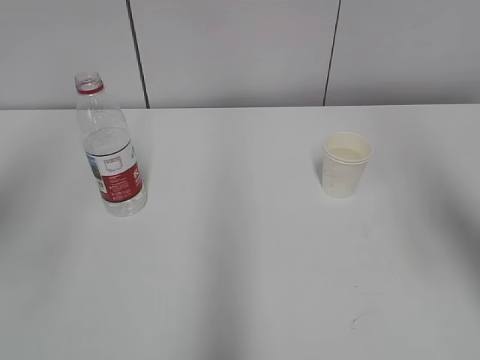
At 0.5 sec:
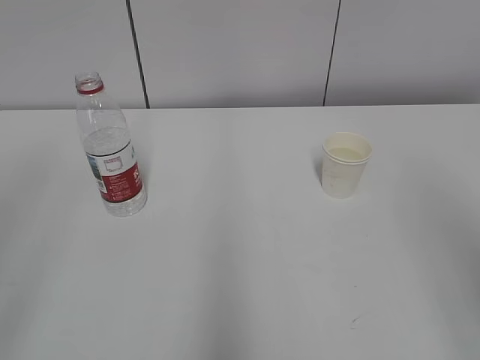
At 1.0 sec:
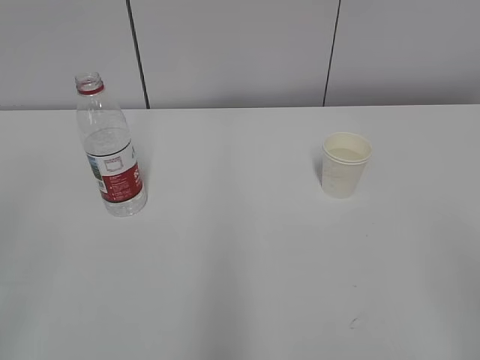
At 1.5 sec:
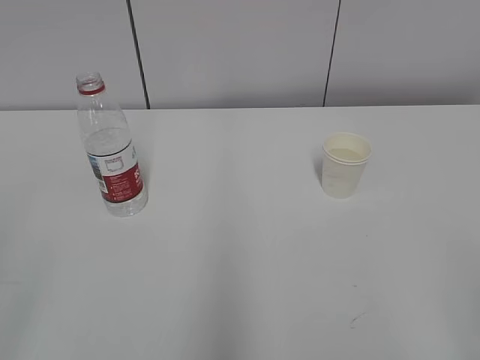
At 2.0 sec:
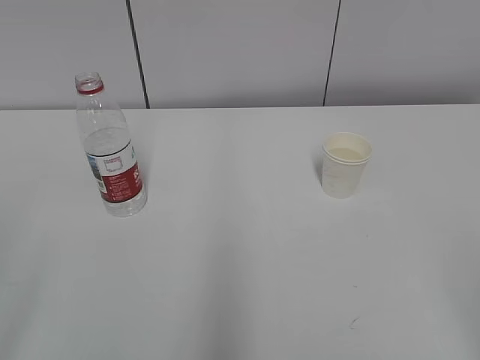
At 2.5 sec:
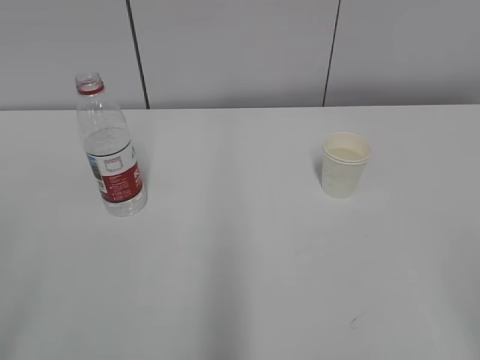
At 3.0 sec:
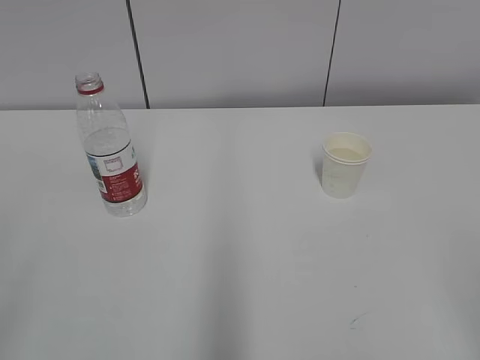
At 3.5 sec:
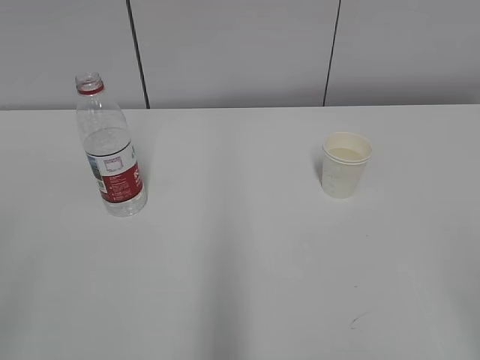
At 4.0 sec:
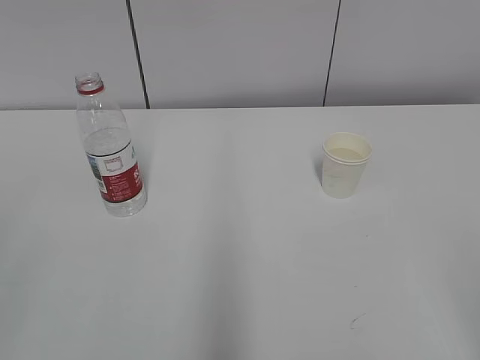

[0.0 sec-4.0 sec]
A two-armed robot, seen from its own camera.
0.0 sec to 2.0 sec: The right gripper moves backward and downward, about 25 cm.

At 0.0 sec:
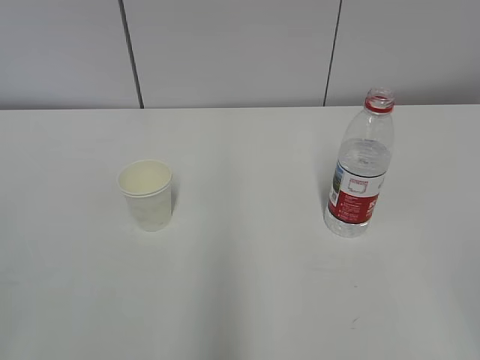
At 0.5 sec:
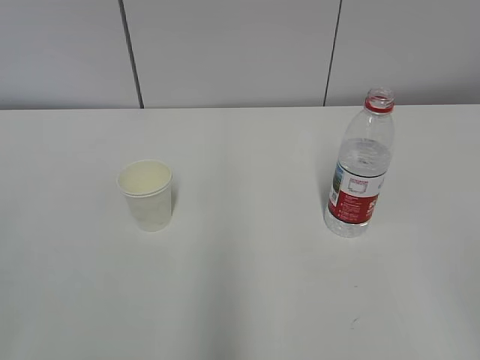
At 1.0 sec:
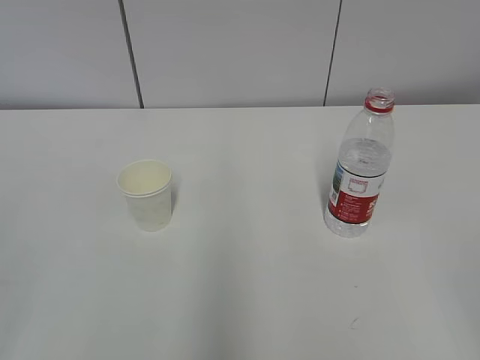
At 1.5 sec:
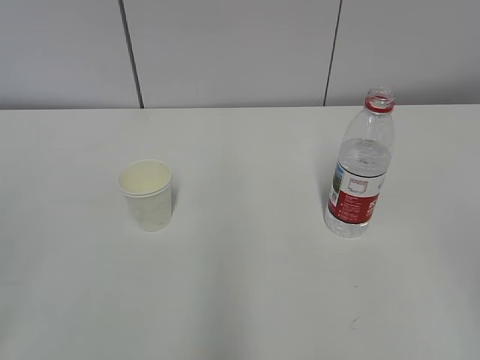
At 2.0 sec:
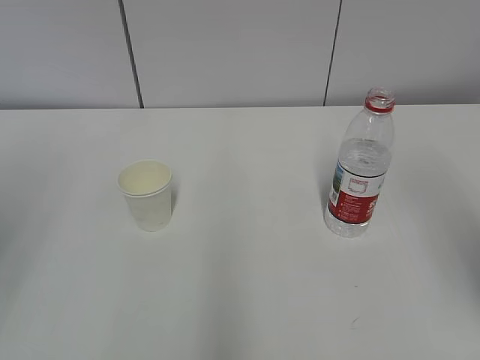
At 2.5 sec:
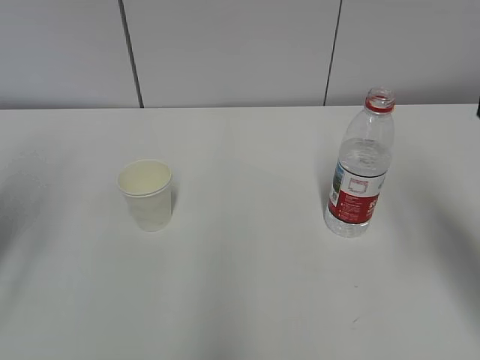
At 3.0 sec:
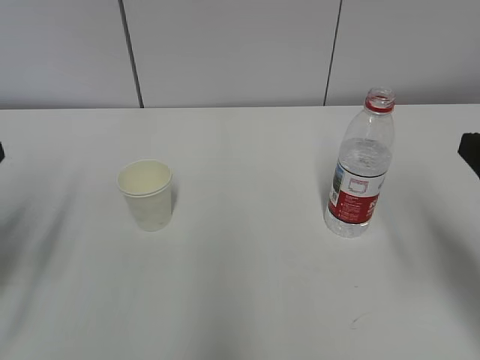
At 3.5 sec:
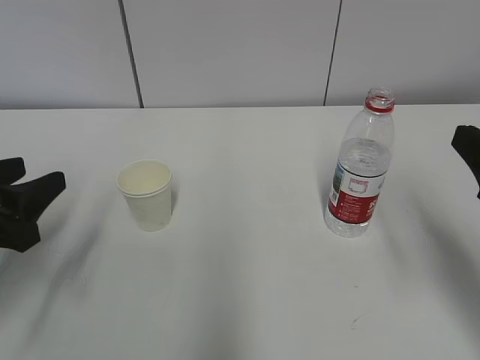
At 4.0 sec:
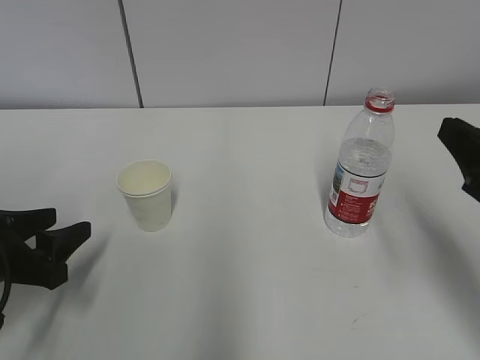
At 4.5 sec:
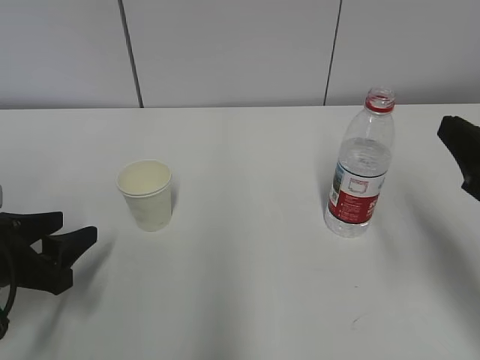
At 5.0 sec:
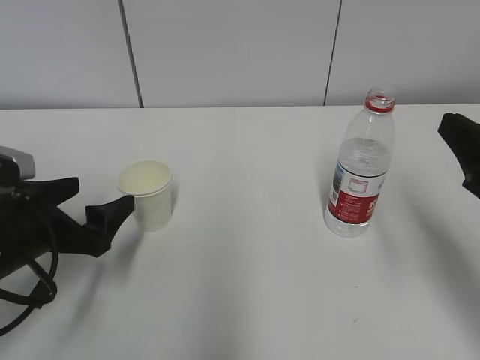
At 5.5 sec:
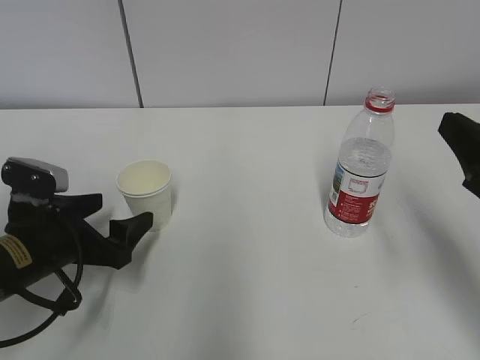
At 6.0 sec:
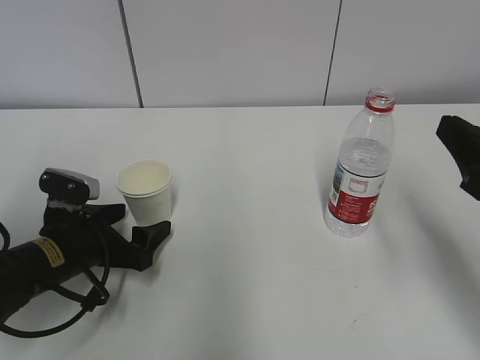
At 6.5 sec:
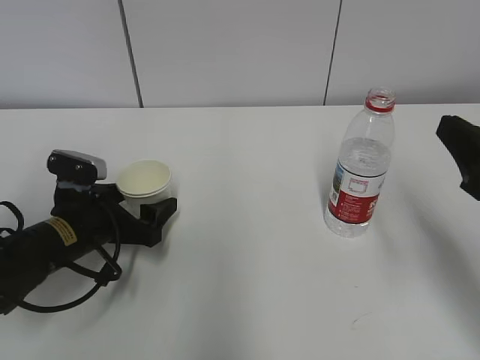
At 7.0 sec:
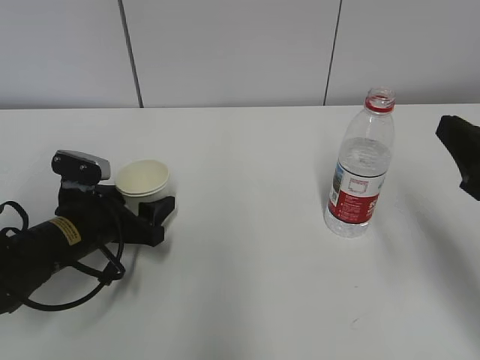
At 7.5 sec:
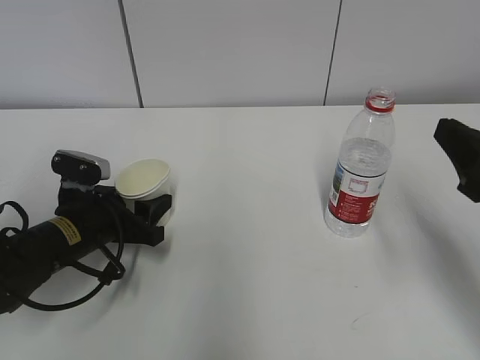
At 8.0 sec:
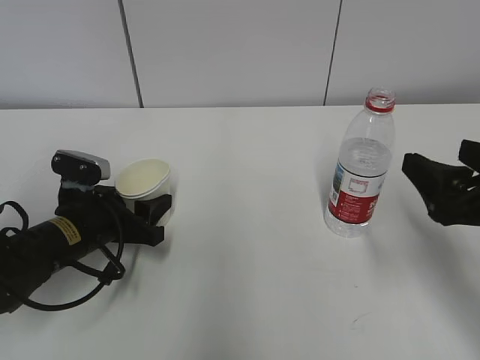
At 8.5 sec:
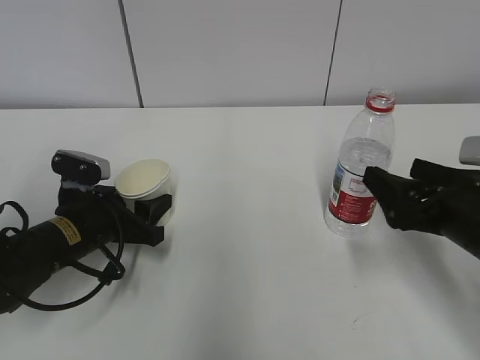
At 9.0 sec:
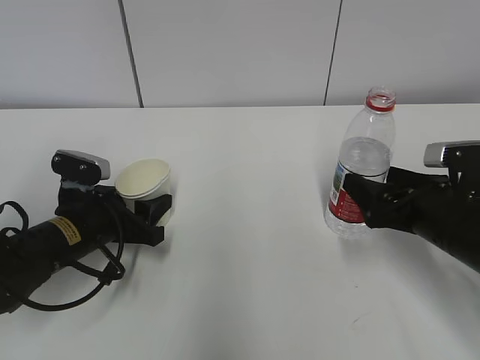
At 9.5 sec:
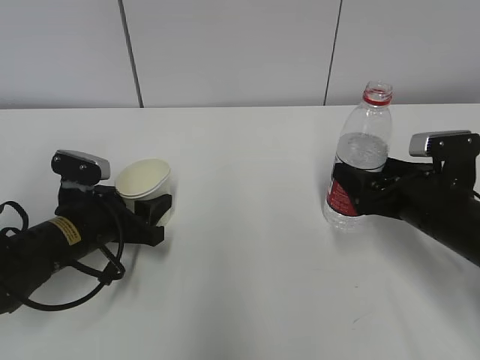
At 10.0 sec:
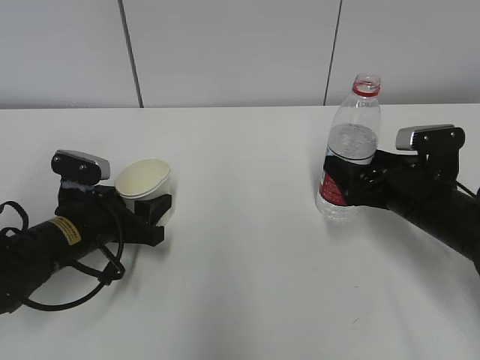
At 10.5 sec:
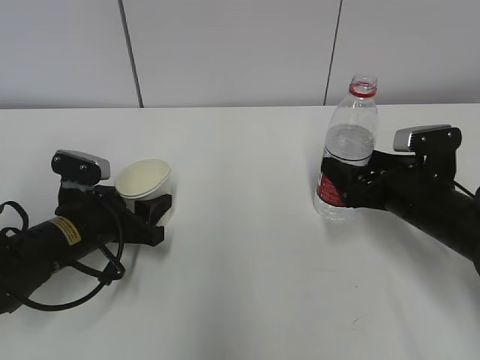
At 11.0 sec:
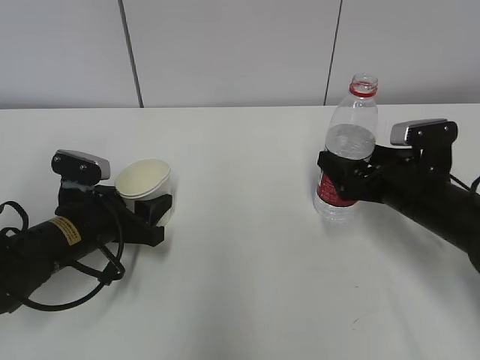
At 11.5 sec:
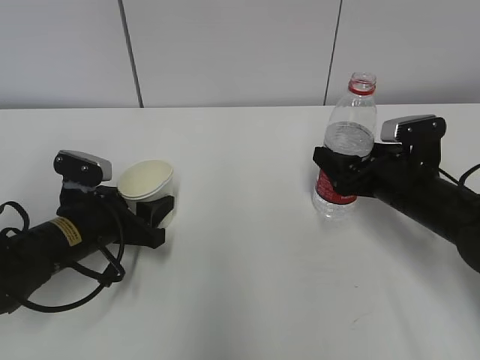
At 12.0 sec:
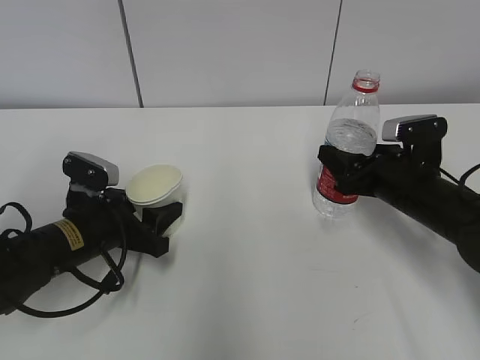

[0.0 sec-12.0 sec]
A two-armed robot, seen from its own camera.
Step, 0.0 sec to 6.0 sec: Grab the paper cup with the left hand.
Step, 6.5 sec to 9.5 sec: Grab the water bottle with the right hand.
2.0 sec to 4.0 sec: The right gripper travels downward and forward by roughly 15 cm. The left gripper is displaced downward and forward by about 25 cm.
4.0 sec to 6.0 sec: The left gripper is displaced to the right and forward by about 10 cm, and opens its fingers.
6.0 sec to 8.0 sec: The right gripper opens up, while the left gripper closes its fingers.
8.0 sec to 10.0 sec: The right gripper travels forward and downward by roughly 15 cm.
10.0 sec to 12.0 sec: The right gripper closes.

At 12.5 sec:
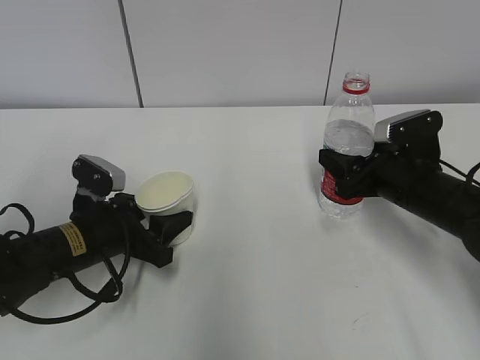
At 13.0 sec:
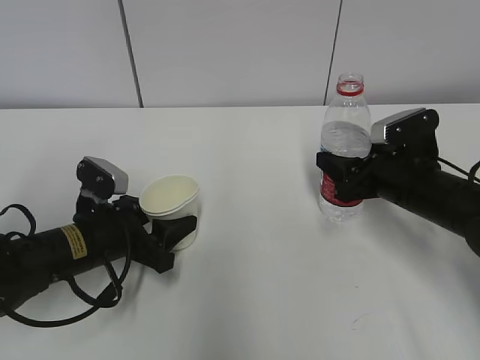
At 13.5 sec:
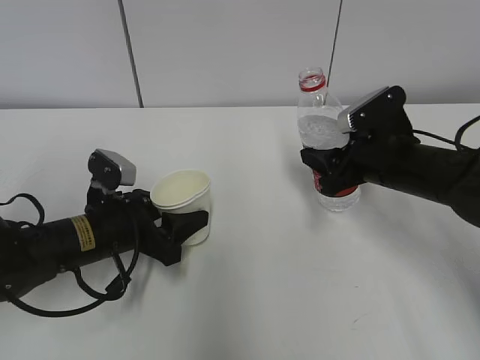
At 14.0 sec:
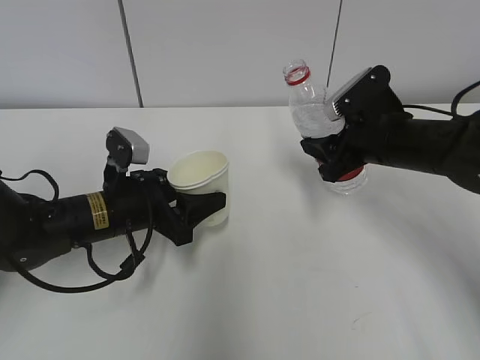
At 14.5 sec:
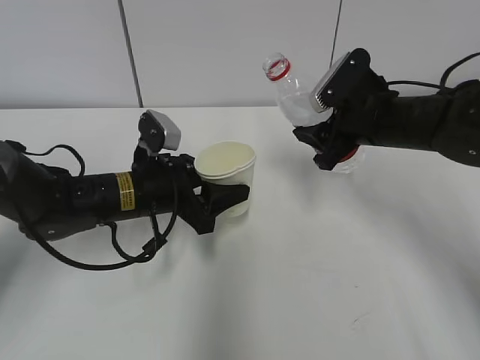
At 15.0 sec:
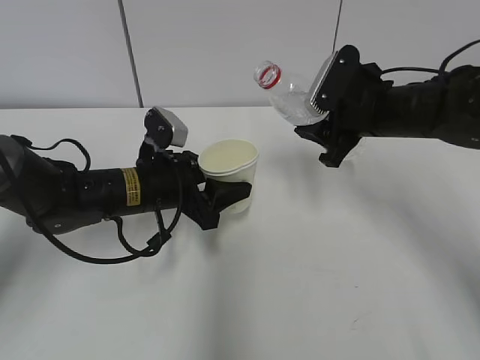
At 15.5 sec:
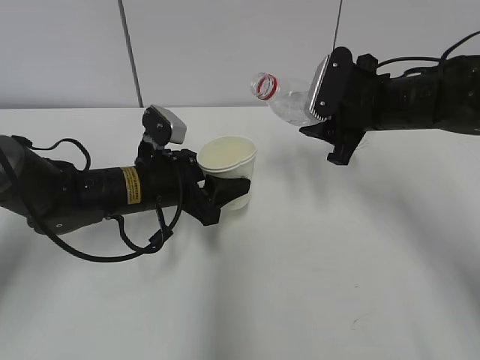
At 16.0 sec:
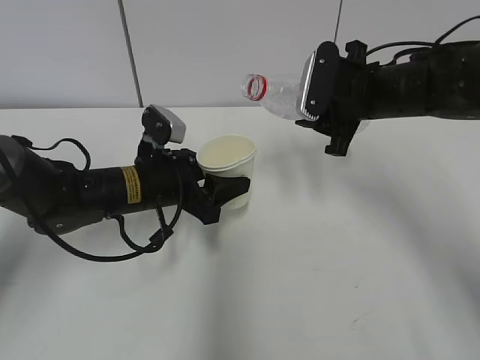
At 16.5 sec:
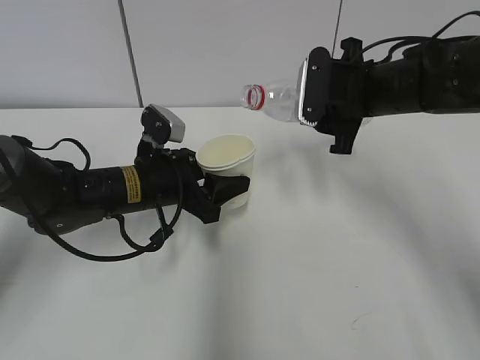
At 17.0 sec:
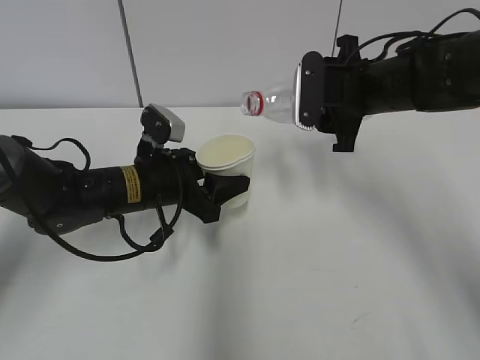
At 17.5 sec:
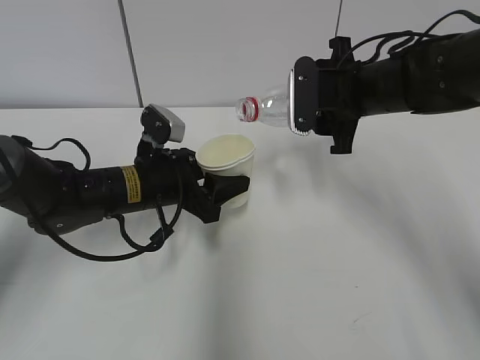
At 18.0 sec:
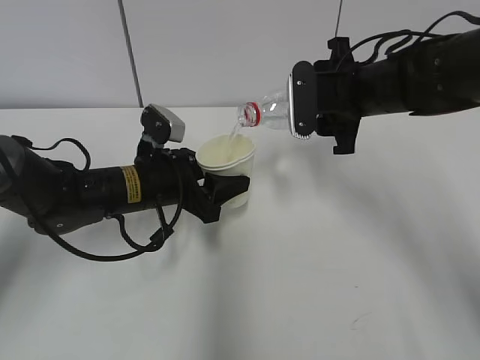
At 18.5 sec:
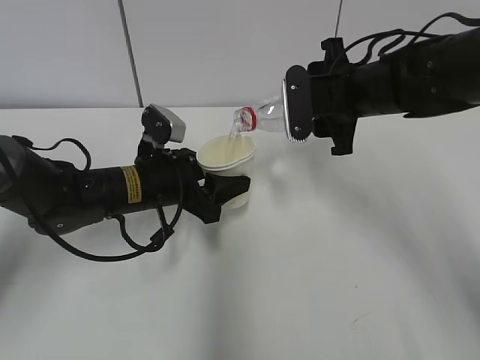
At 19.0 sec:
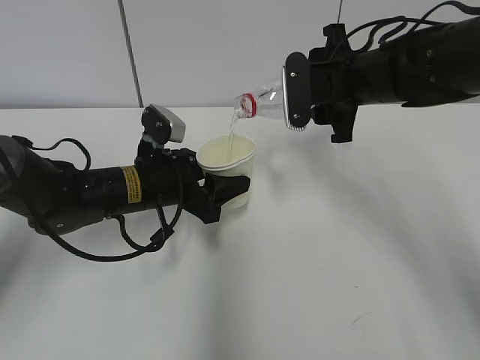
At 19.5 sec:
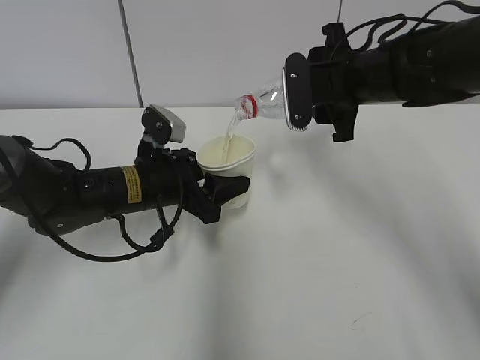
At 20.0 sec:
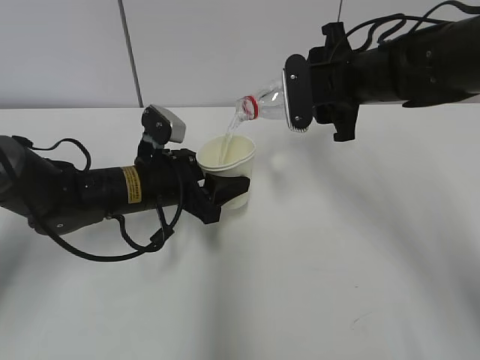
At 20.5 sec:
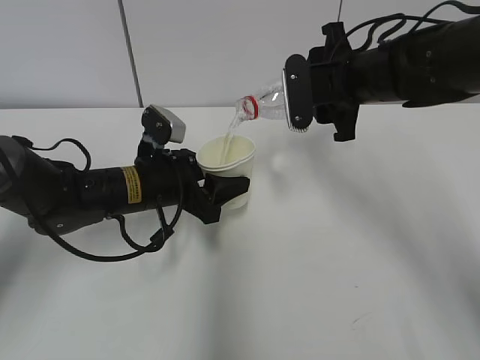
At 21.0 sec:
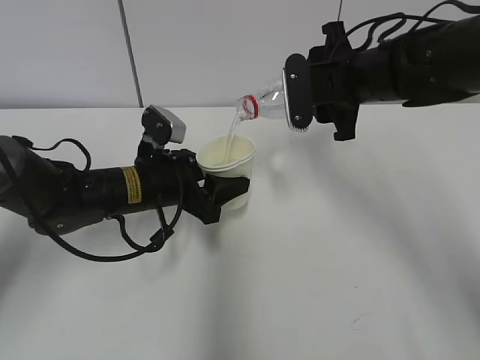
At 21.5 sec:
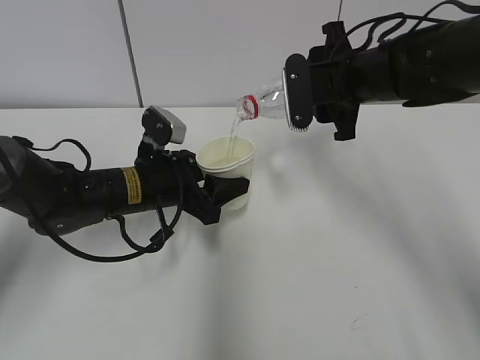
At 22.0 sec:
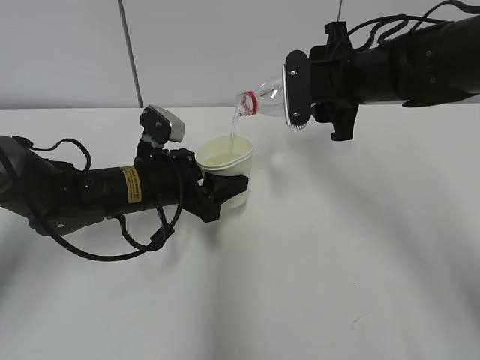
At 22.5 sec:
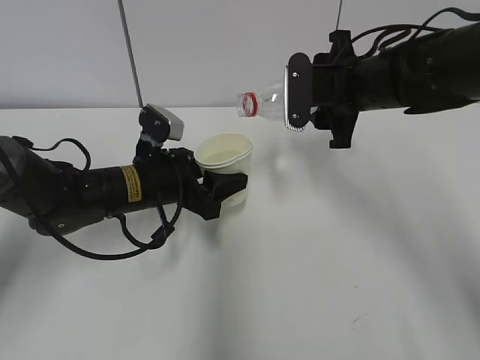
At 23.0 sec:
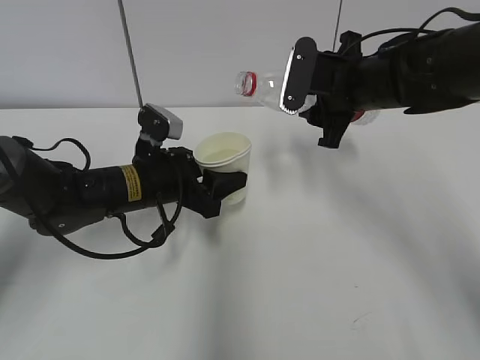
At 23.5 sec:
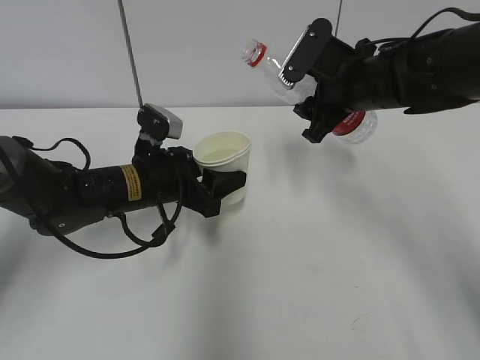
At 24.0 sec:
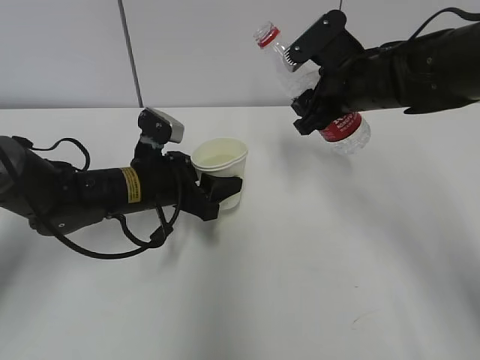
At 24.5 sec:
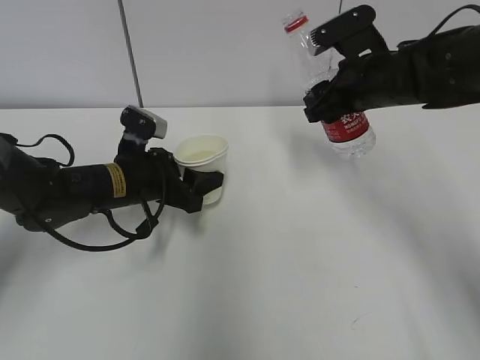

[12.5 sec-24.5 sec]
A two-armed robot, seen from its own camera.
Step, 14.5 sec to 18.5 sec: Fill water with the left hand.
Step, 14.5 sec to 18.5 sec: Pour water with the right hand.
Step, 19.0 sec to 20.0 sec: Collect water with the right hand.
Step, 20.5 sec to 22.0 sec: Place the paper cup with the left hand.
12.5 sec to 14.5 sec: The left gripper travels to the right by about 5 cm. Meanwhile the right gripper heads upward, covering about 5 cm.
16.5 sec to 18.5 sec: The grippers move only a little.
18.5 sec to 20.5 sec: The two grippers keep their place.
20.5 sec to 22.5 sec: The grippers move only a little.
